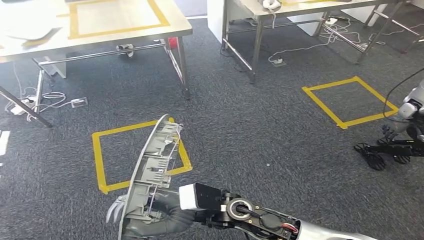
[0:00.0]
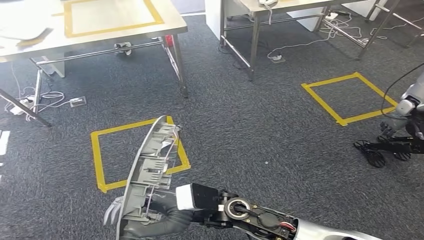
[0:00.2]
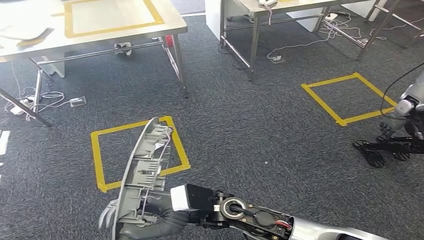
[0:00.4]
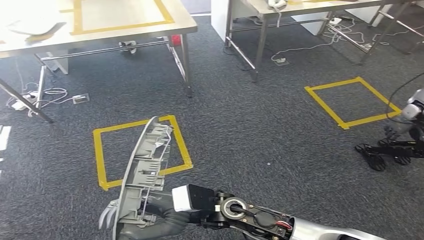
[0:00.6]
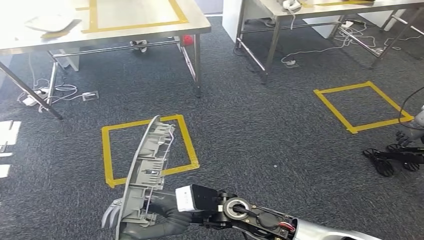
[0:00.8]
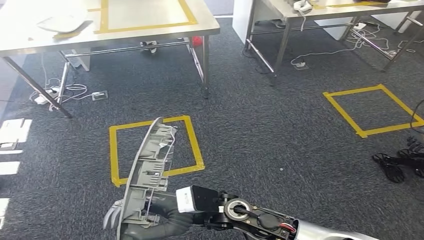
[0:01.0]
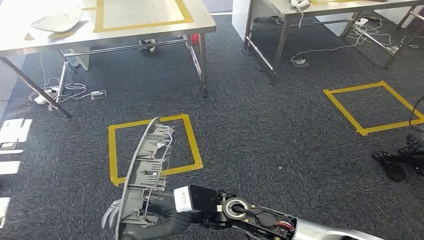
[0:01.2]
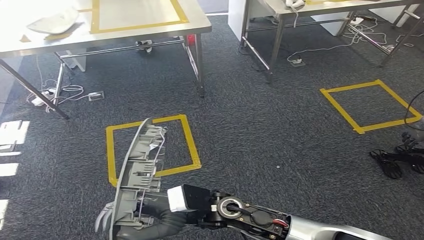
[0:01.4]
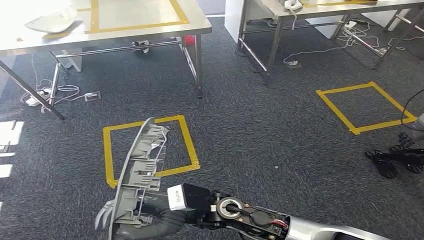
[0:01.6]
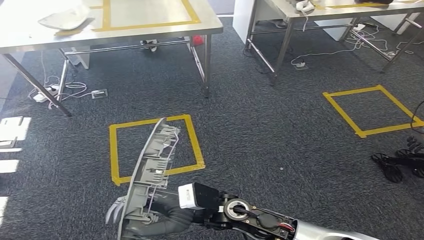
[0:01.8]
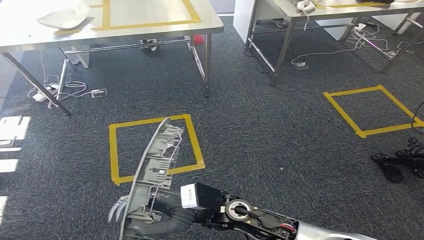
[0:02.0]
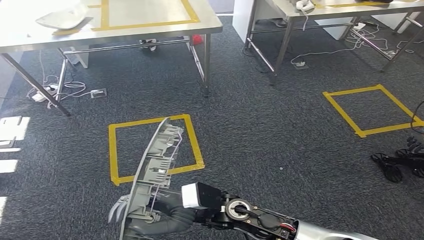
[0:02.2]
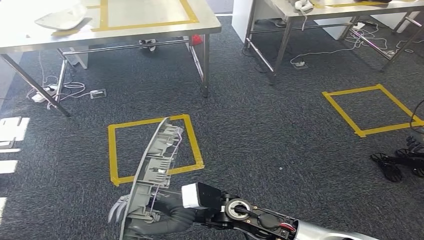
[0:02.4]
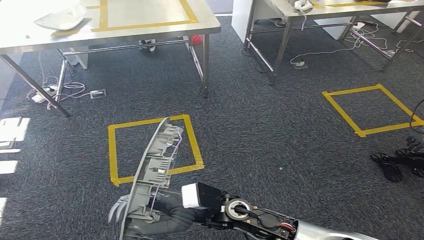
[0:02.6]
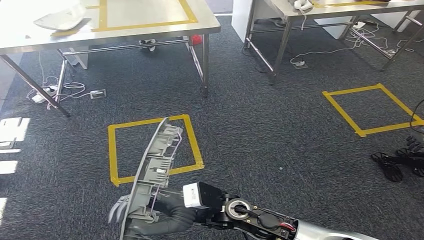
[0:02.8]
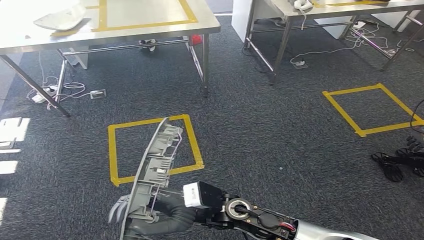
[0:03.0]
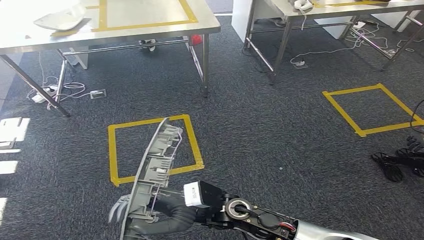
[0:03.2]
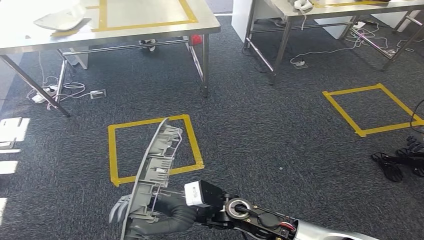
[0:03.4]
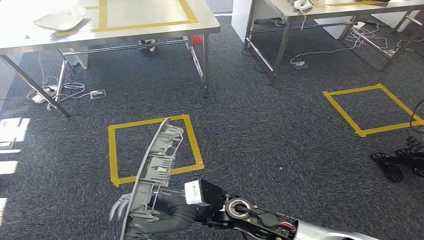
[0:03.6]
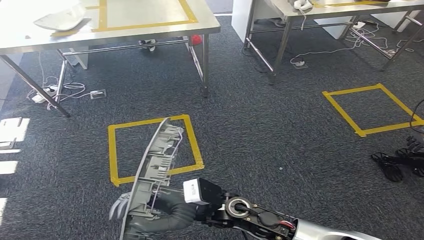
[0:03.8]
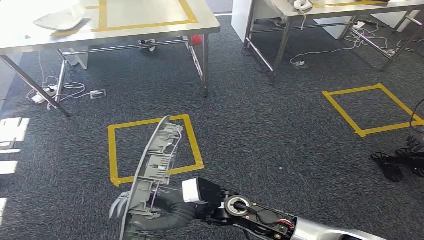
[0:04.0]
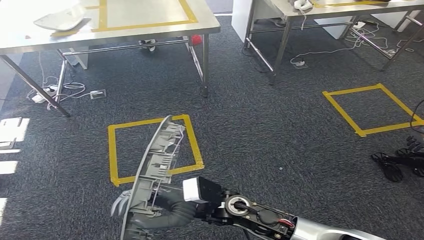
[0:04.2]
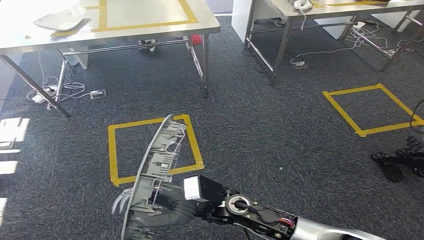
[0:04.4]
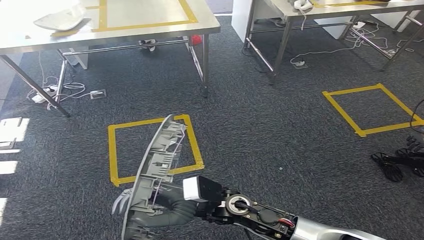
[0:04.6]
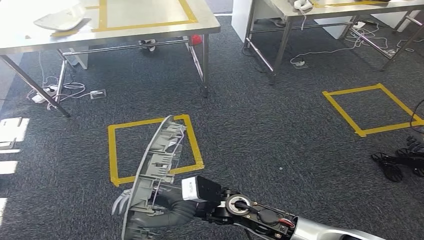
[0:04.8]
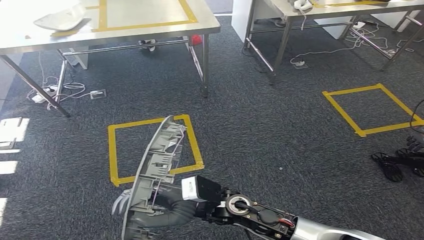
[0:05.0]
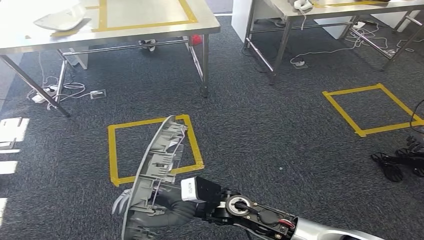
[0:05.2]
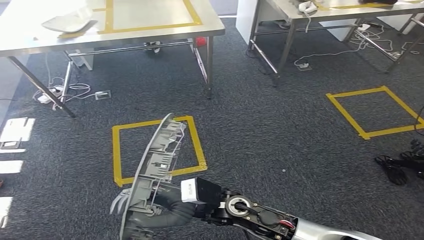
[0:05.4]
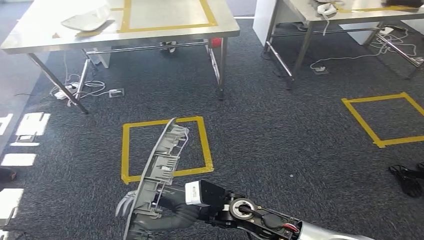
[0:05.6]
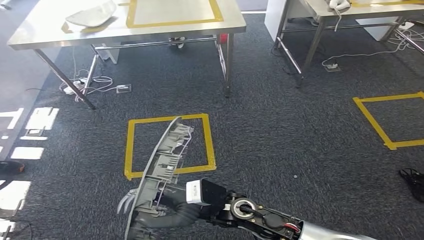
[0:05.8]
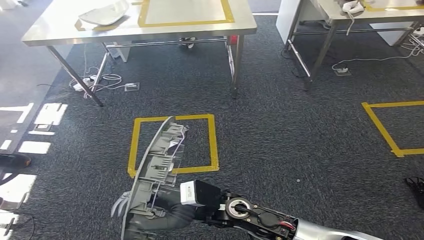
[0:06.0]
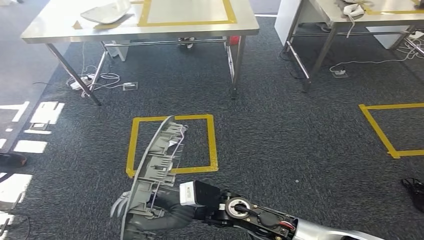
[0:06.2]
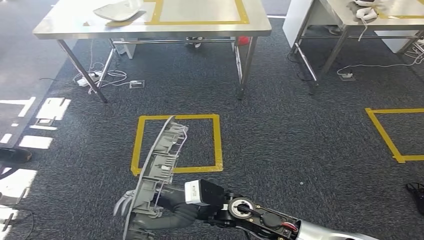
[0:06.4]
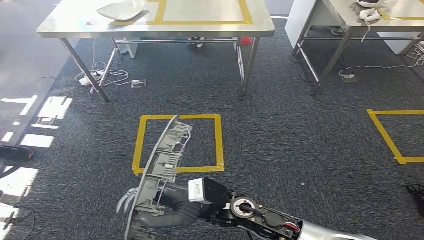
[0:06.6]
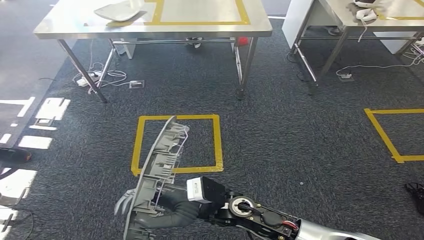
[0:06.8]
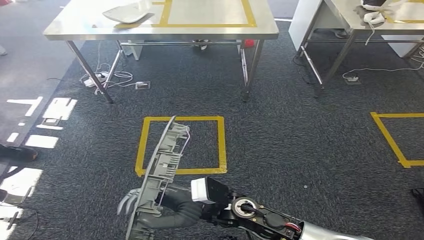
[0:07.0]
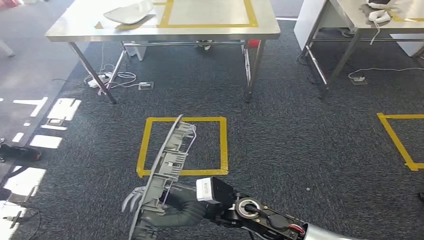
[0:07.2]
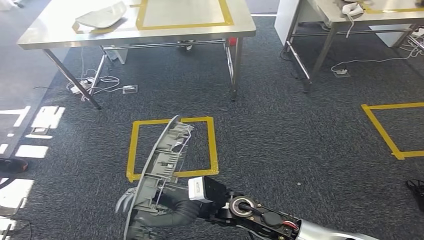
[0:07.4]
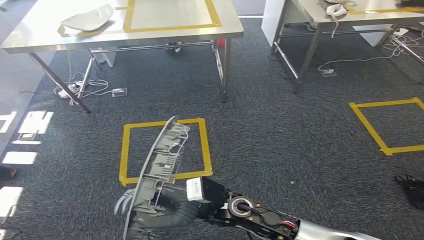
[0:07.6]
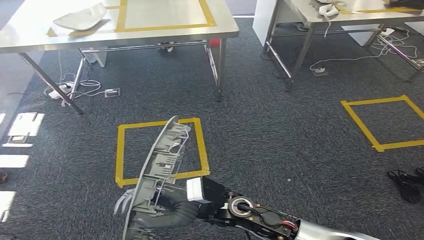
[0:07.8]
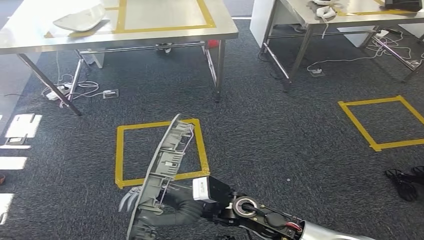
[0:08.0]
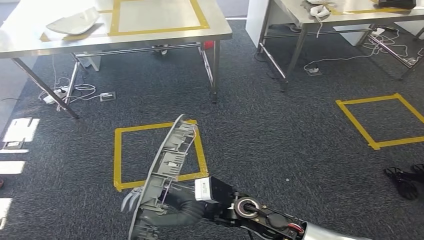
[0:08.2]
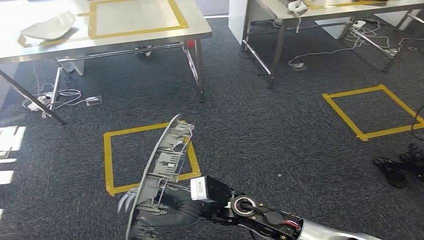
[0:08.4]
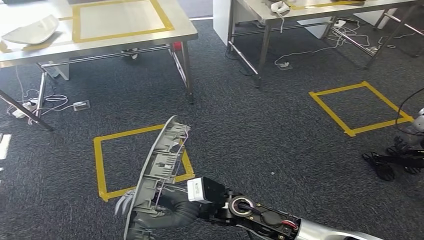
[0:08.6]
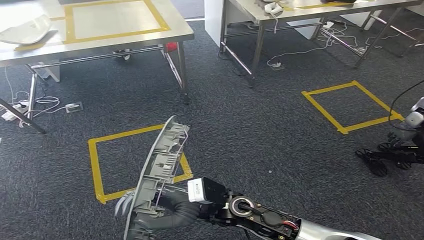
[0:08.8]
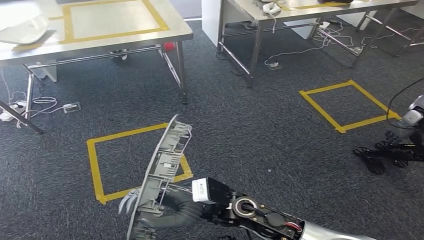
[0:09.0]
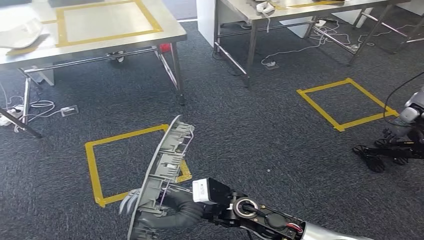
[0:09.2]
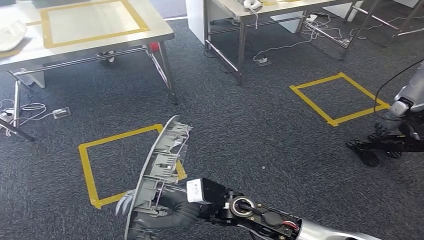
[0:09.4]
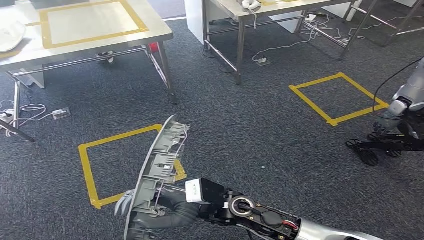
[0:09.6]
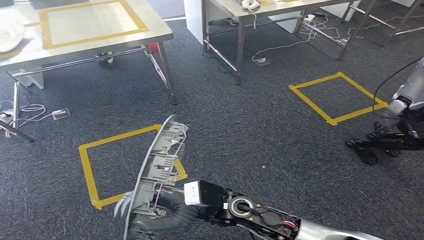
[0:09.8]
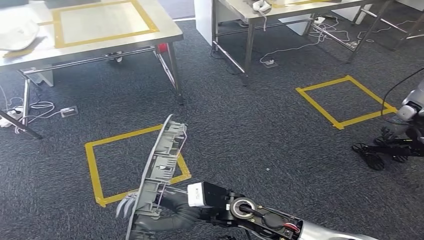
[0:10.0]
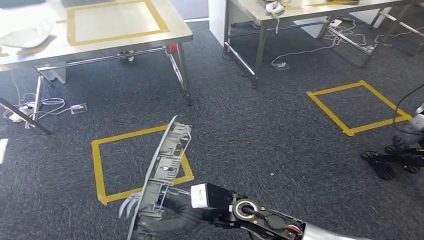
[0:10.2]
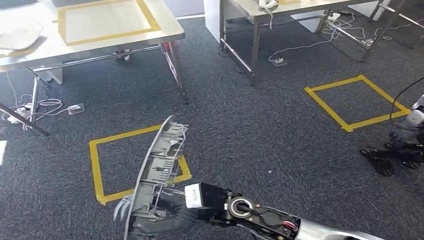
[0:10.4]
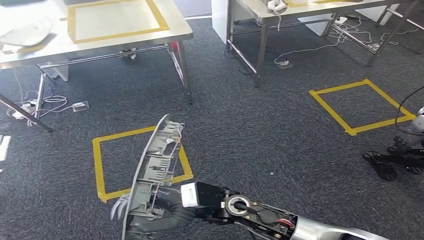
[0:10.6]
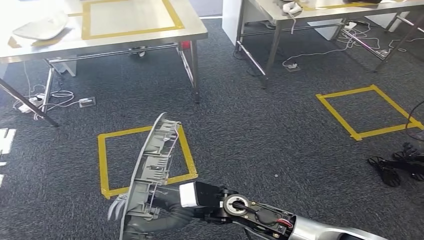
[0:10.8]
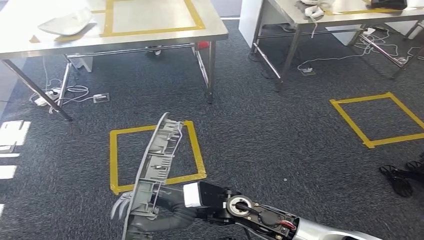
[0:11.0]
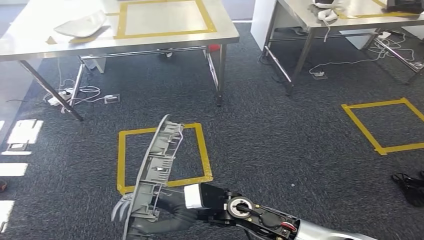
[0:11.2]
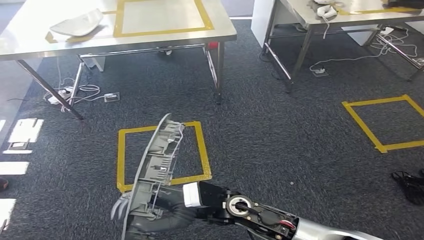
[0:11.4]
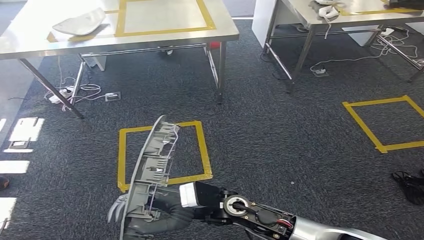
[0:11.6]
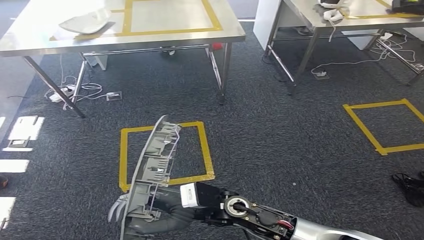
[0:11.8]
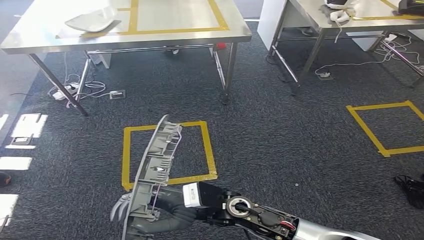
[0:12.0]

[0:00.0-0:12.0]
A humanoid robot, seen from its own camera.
0:03.0 to 0:04.4: Both hands stay put.
0:09.0 to 0:10.4: Neither hand changes place.

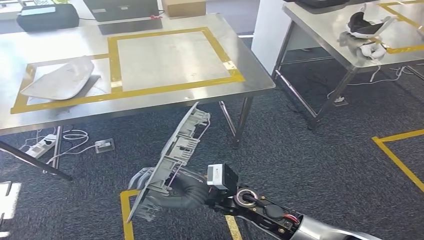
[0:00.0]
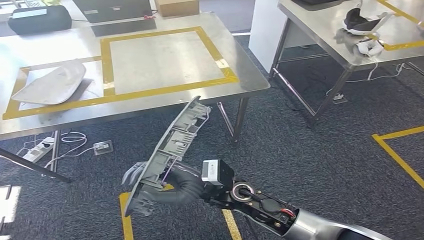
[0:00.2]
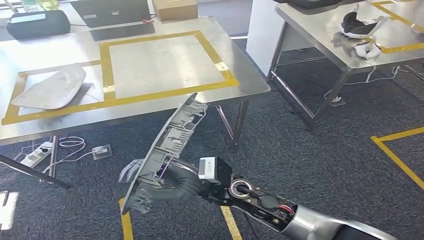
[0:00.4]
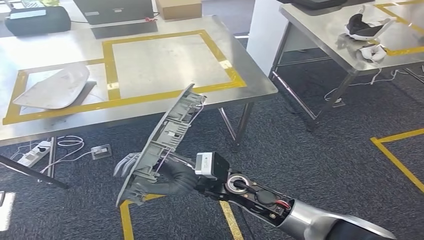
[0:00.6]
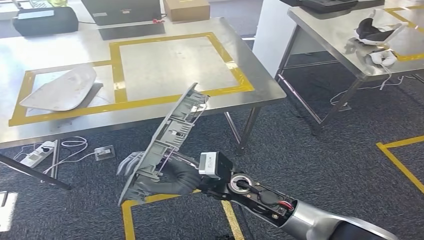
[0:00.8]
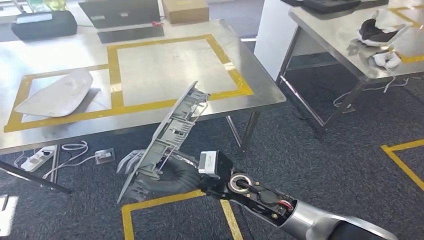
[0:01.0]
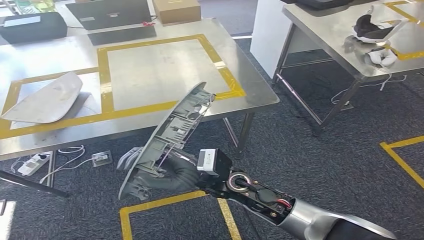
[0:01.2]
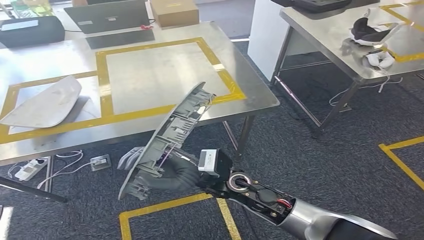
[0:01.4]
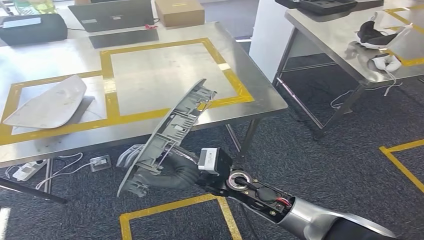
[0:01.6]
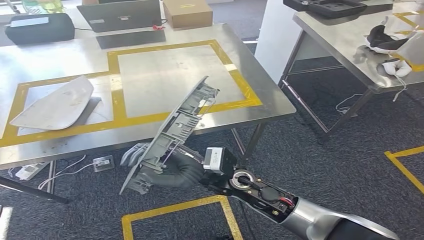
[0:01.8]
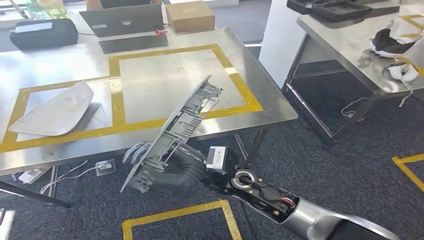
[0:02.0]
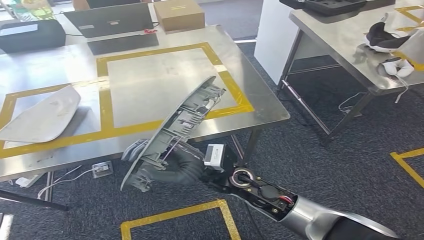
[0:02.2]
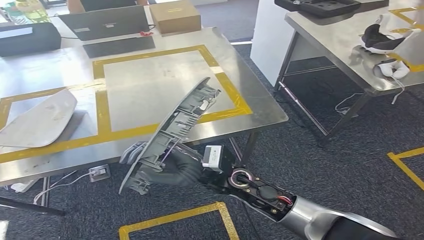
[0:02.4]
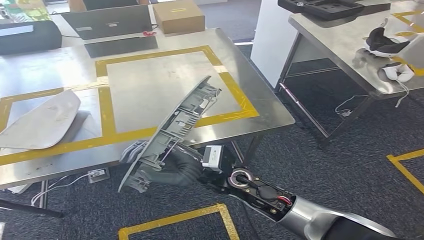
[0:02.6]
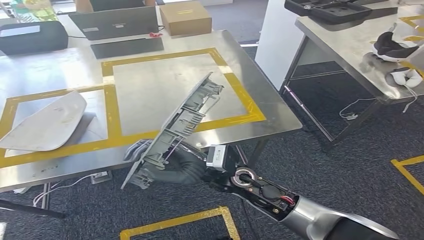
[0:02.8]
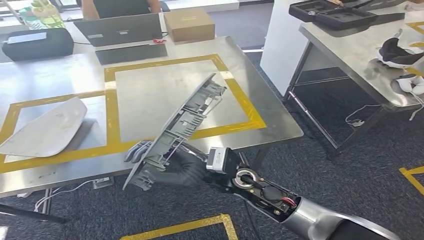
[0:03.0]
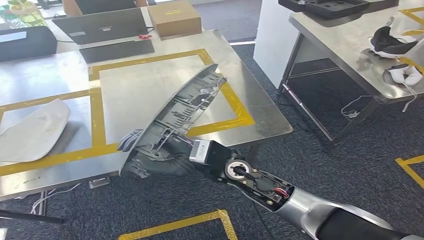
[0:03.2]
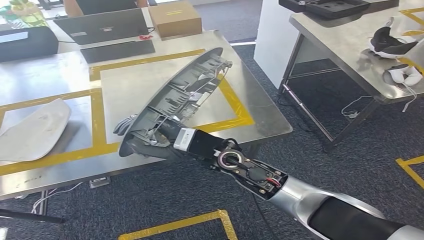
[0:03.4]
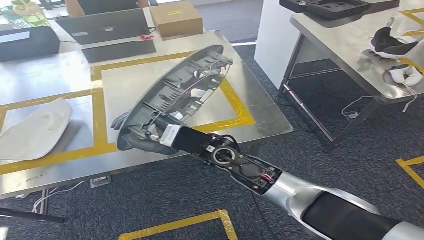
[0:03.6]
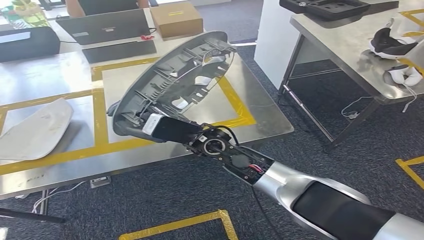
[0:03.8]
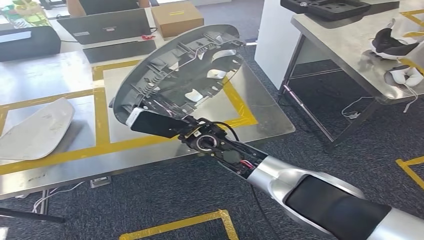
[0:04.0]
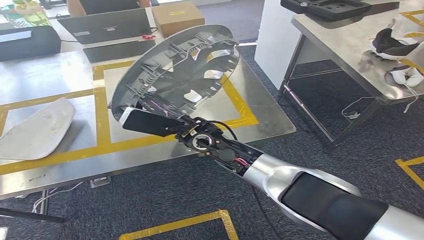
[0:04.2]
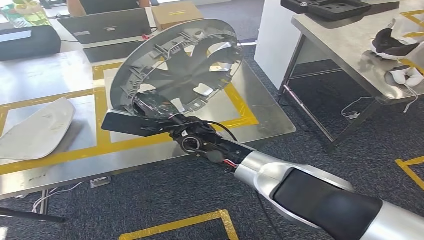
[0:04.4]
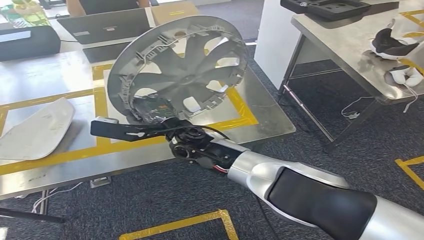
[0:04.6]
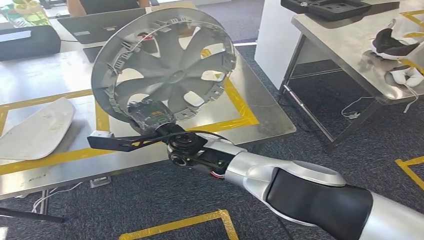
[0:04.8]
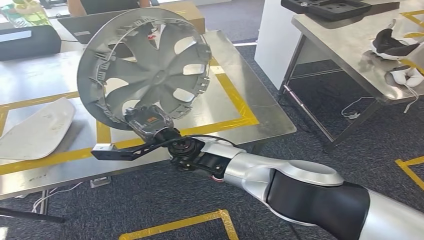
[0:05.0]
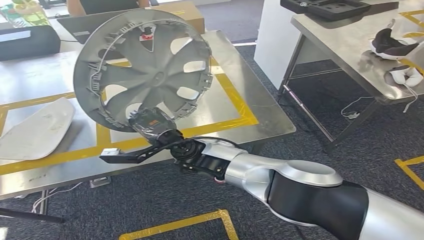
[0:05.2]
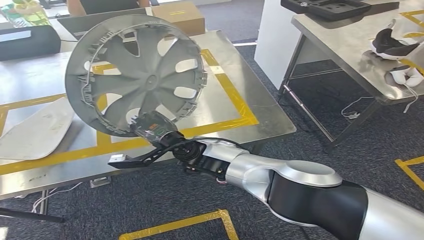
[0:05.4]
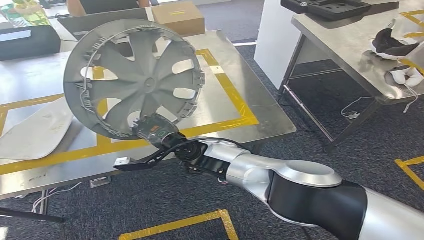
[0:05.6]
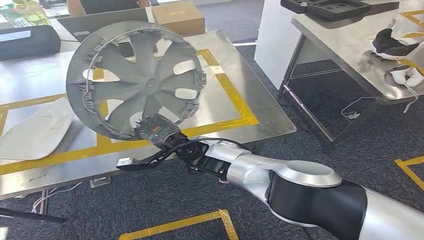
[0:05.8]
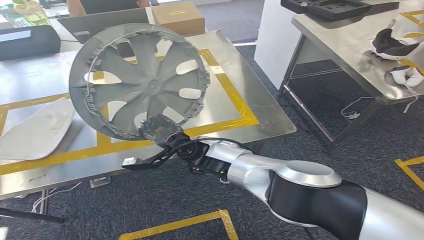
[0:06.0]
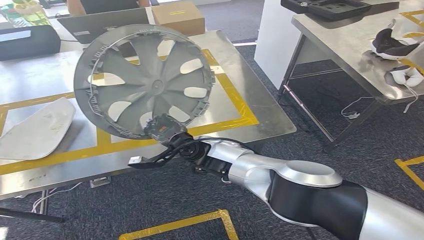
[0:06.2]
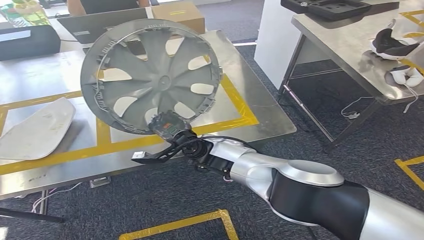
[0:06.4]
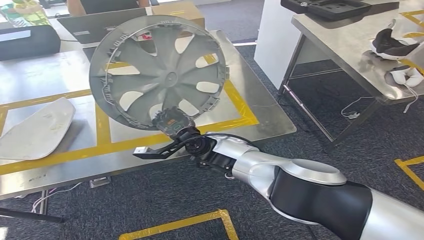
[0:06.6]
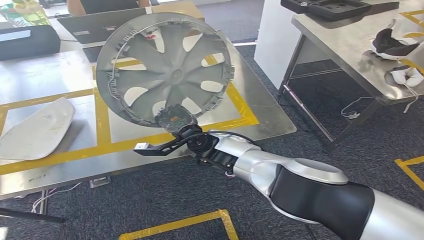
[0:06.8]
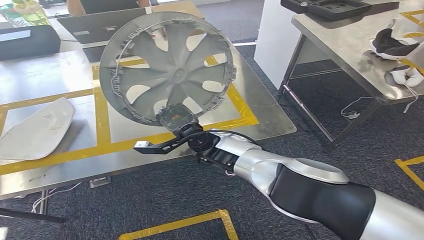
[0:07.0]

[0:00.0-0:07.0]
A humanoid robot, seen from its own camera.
Step, 0:00.0 to 0:03.0: Move to the table behind body.
0:05.6 to 0:07.0: The hands move only a little.
